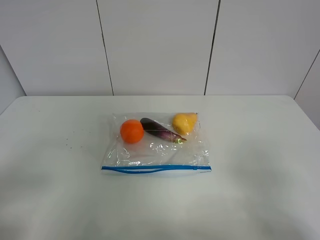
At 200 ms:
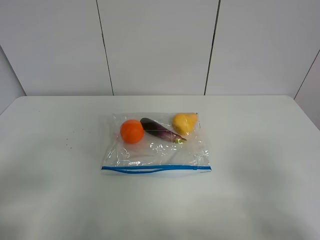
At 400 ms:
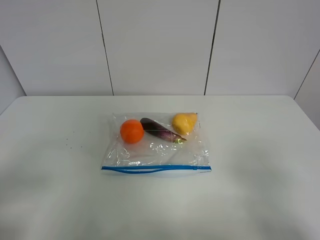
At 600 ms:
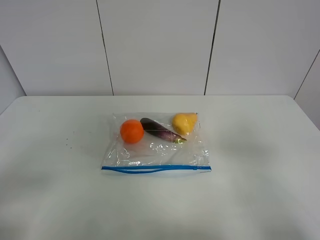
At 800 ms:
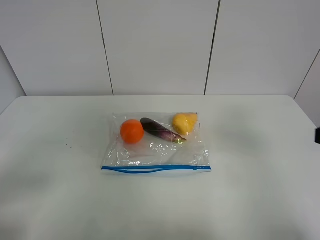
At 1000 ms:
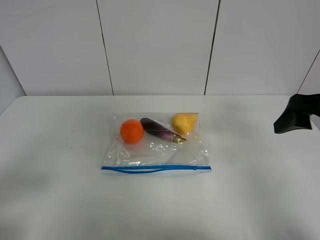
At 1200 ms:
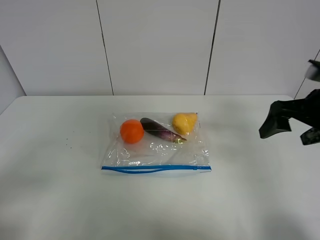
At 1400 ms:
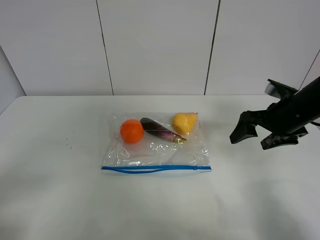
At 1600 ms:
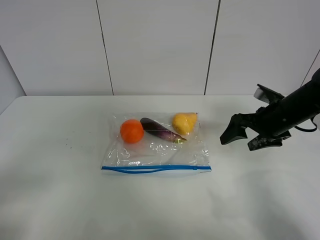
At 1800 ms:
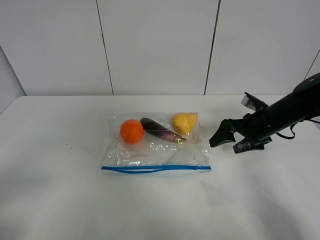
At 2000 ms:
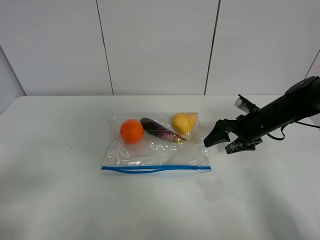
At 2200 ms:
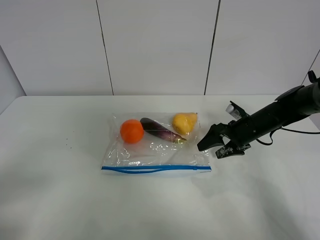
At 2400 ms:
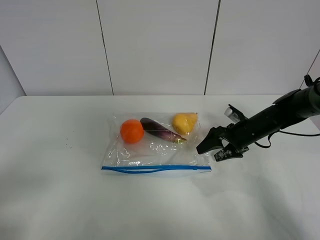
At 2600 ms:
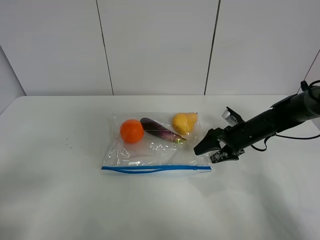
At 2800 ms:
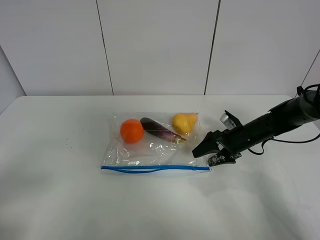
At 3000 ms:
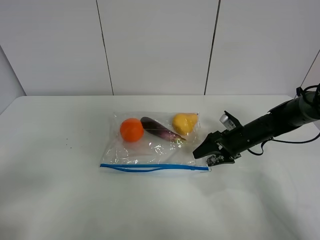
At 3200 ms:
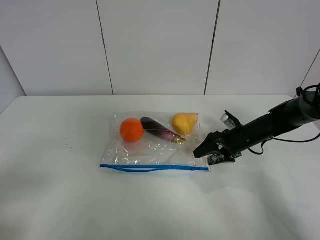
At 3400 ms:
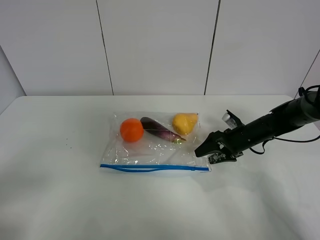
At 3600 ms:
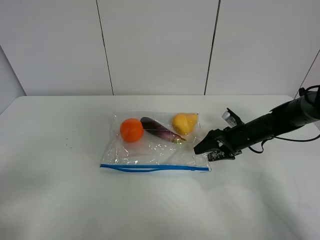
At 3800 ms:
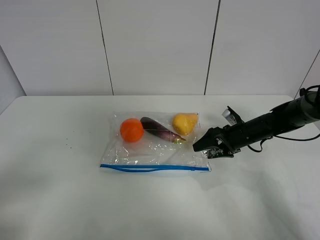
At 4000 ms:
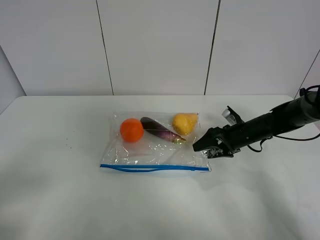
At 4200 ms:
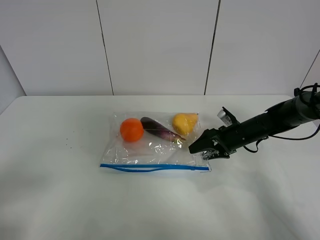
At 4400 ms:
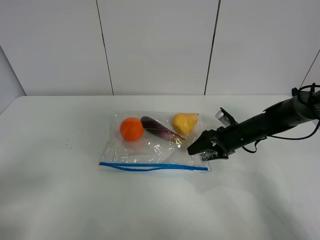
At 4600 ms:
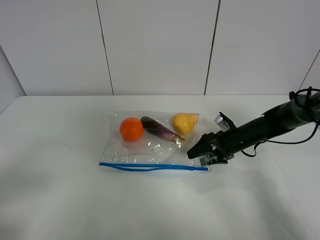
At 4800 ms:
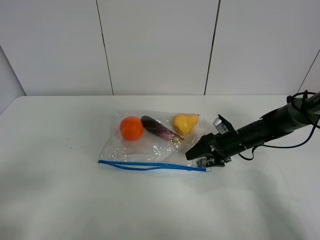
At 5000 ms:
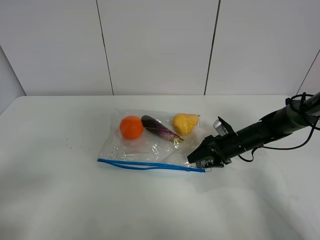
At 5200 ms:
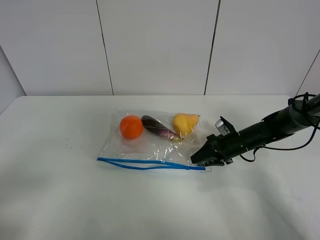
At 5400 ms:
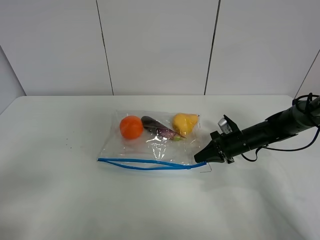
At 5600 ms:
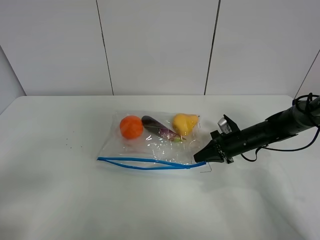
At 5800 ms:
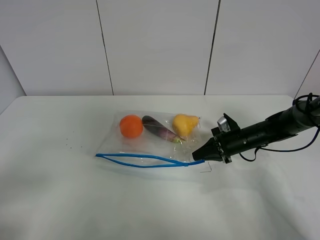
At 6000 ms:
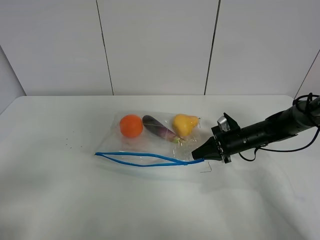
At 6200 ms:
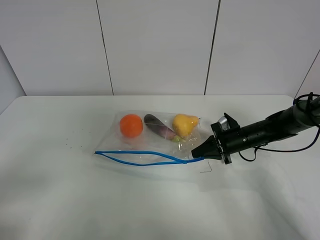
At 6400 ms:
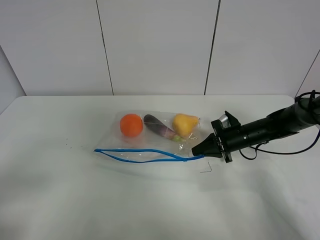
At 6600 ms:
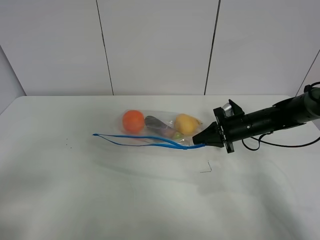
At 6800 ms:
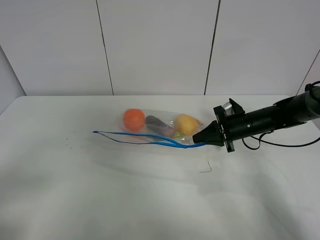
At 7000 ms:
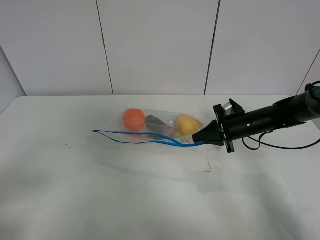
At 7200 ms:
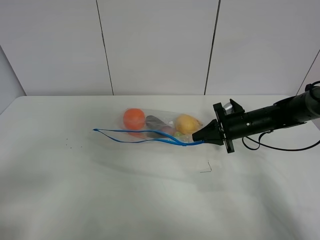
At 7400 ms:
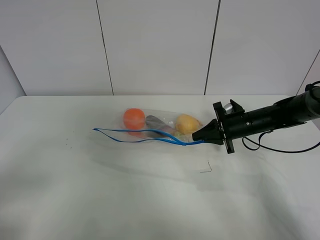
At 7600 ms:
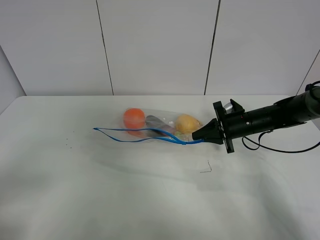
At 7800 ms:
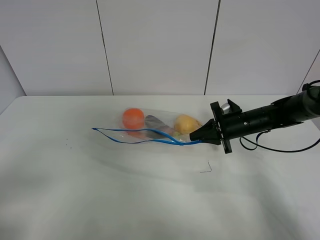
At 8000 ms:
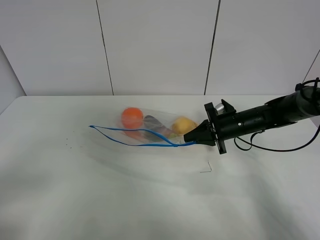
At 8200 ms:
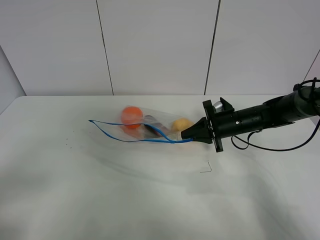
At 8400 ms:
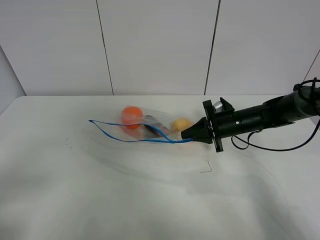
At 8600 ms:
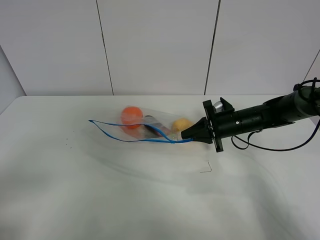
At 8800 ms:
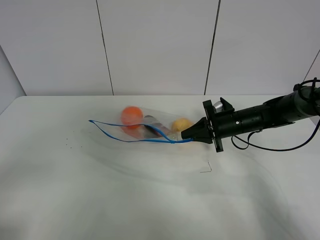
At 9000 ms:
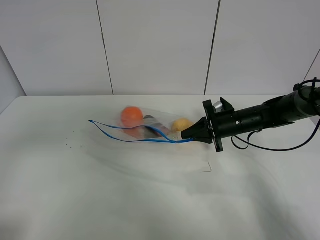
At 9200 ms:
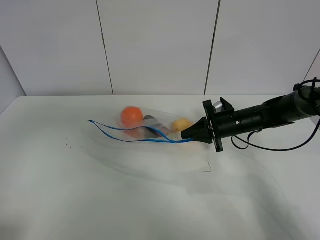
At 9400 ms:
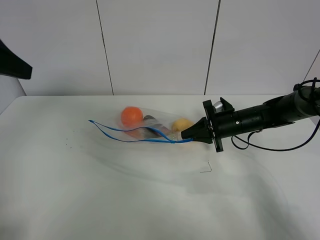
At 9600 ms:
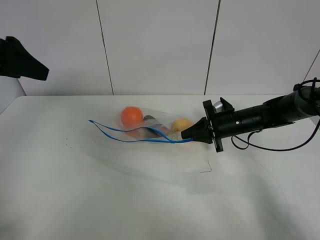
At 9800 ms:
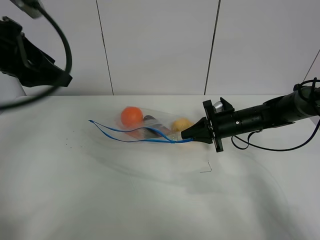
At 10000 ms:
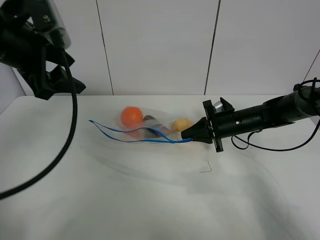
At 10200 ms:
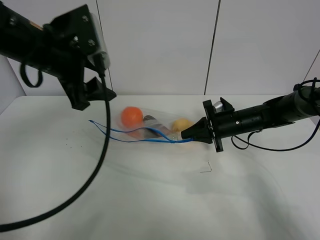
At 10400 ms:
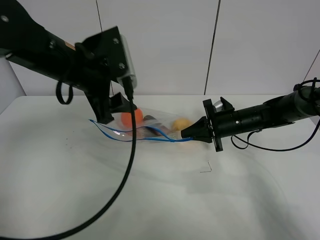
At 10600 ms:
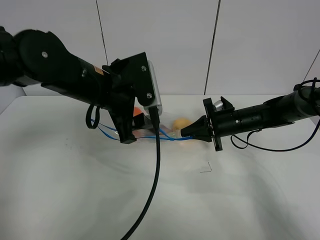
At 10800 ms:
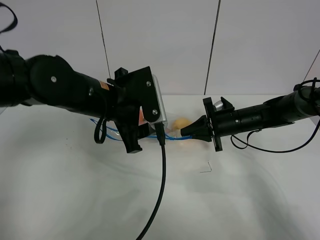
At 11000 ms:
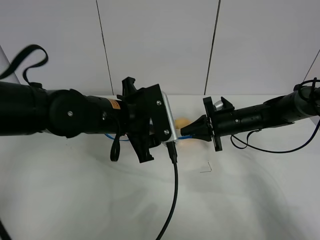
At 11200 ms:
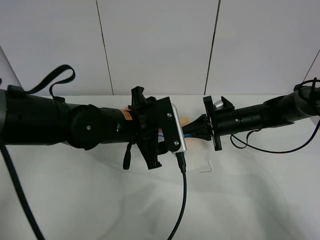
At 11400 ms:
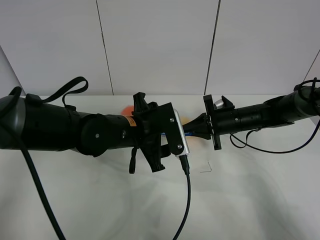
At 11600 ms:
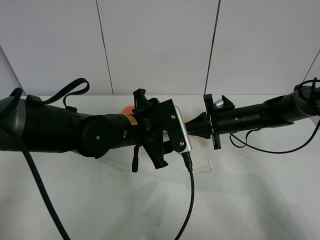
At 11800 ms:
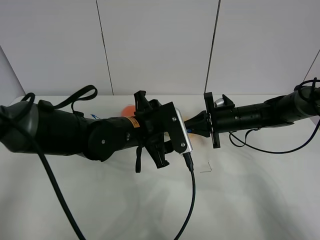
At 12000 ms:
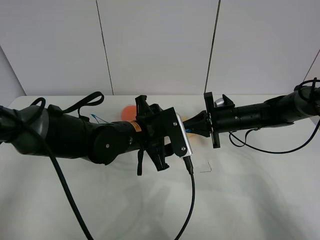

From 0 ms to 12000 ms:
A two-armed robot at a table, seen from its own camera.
Step, from 0 ms to 5200 ms: Grasp the fruit bag with right gripper.
Step, from 5400 ms to 7600 ms: Lift the fruit bag with your right gripper.
From 0 ms to 1600 ms: The right gripper moves forward, about 30 cm.
From 1600 ms to 3000 ms: The right gripper moves downward, some 10 cm.
From 3000 ms to 4400 ms: The grippers move only a little.
From 4400 ms to 6000 ms: The right gripper closes.
From 6000 ms to 7600 ms: There are only small adjustments of the grippers.
From 7600 ms to 9000 ms: The left gripper is displaced upward and forward by some 10 cm.
From 9000 ms to 10400 ms: The left gripper moves forward and to the right, some 25 cm.
From 10400 ms to 12000 ms: The left gripper is displaced downward and to the right by some 15 cm.

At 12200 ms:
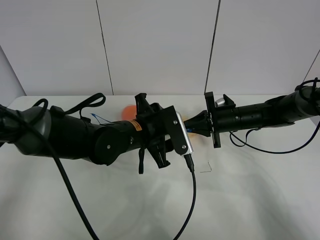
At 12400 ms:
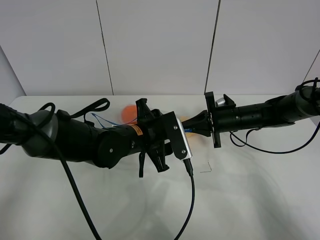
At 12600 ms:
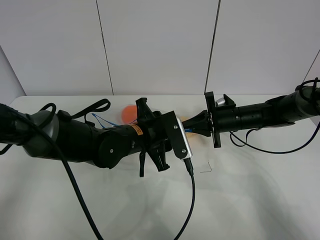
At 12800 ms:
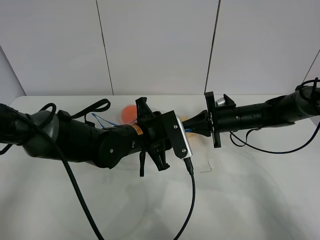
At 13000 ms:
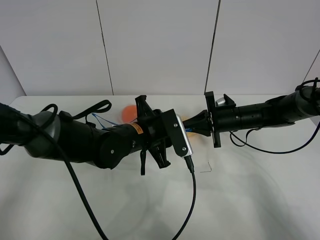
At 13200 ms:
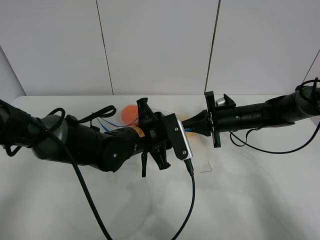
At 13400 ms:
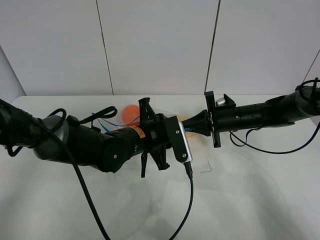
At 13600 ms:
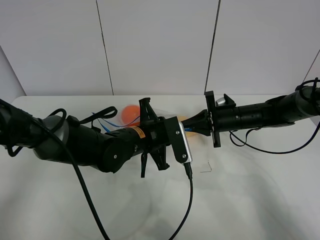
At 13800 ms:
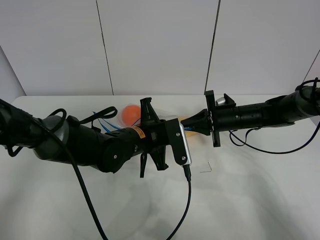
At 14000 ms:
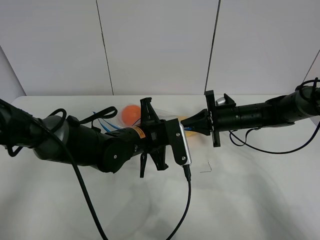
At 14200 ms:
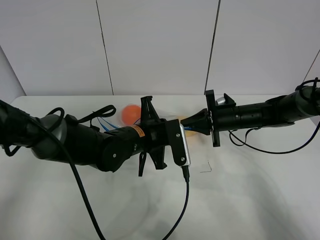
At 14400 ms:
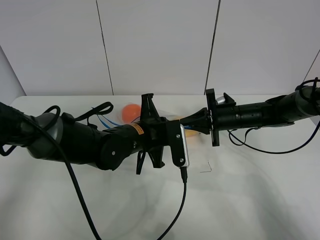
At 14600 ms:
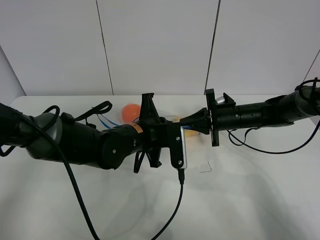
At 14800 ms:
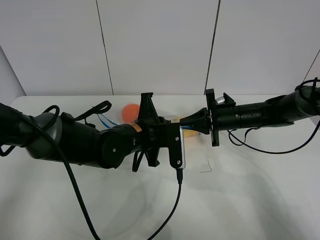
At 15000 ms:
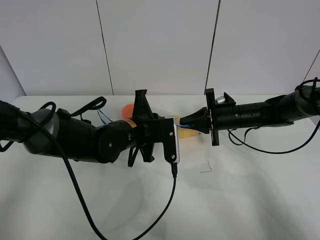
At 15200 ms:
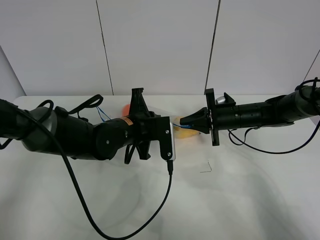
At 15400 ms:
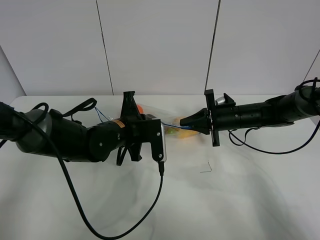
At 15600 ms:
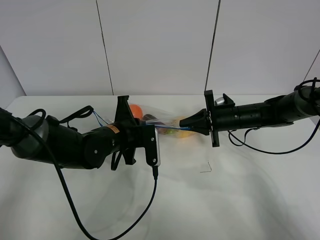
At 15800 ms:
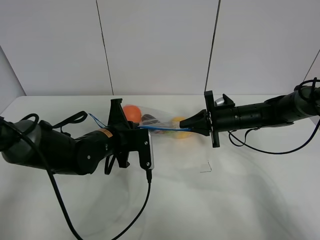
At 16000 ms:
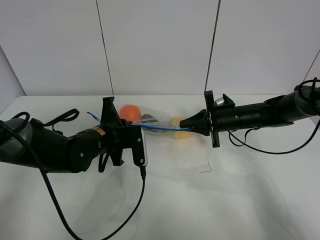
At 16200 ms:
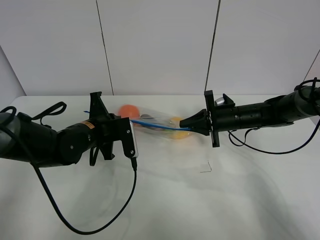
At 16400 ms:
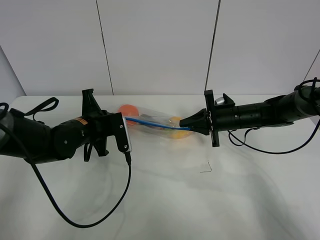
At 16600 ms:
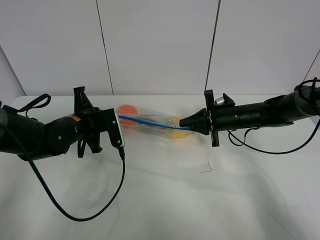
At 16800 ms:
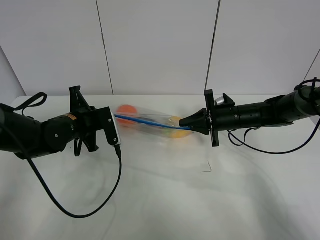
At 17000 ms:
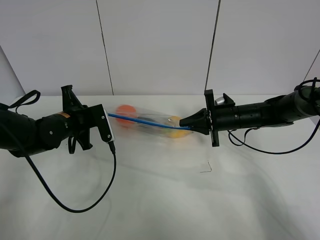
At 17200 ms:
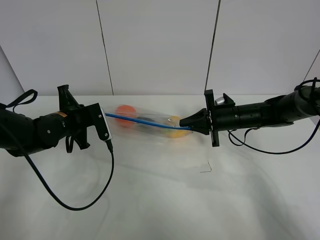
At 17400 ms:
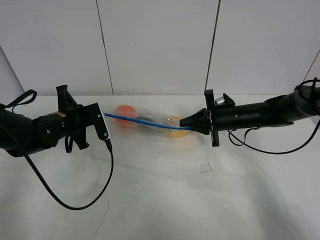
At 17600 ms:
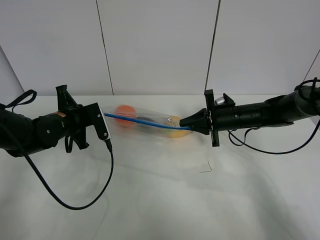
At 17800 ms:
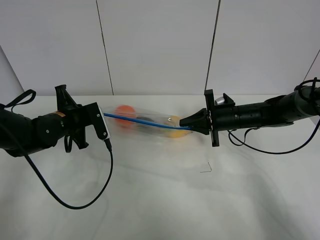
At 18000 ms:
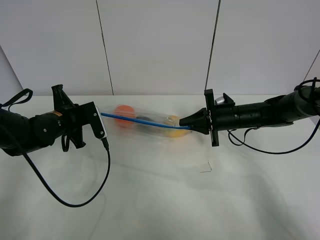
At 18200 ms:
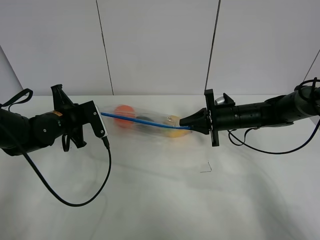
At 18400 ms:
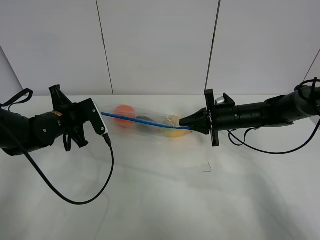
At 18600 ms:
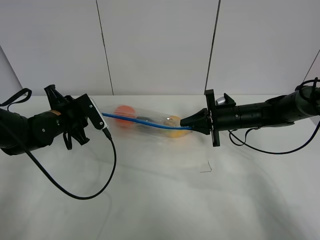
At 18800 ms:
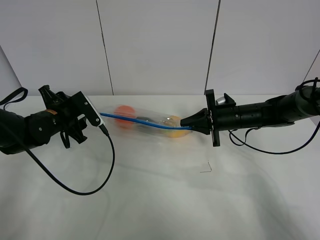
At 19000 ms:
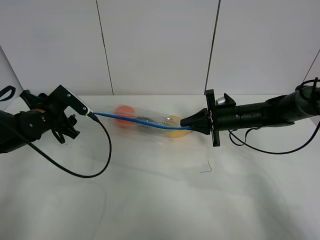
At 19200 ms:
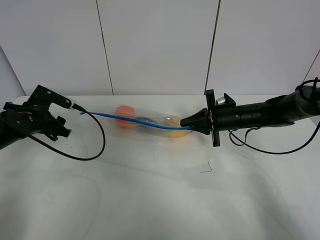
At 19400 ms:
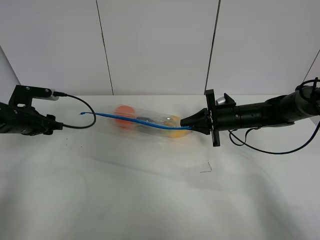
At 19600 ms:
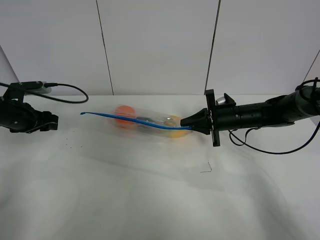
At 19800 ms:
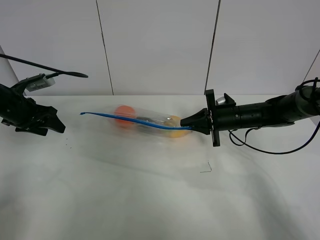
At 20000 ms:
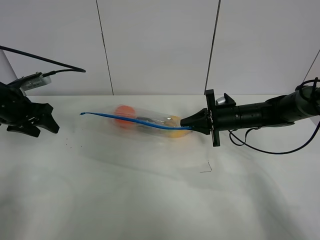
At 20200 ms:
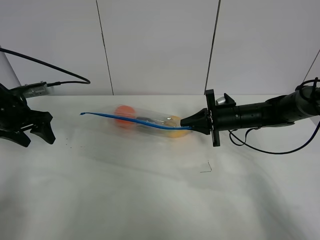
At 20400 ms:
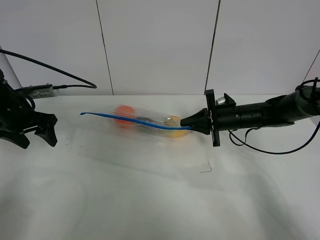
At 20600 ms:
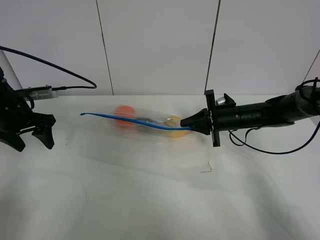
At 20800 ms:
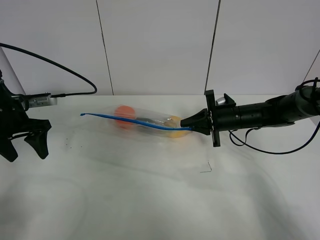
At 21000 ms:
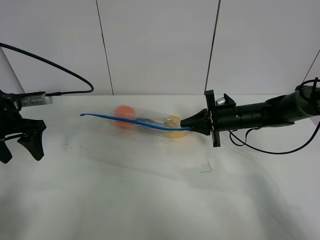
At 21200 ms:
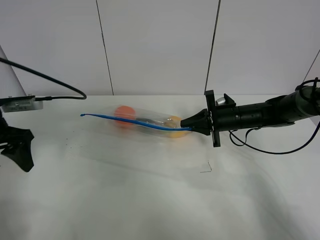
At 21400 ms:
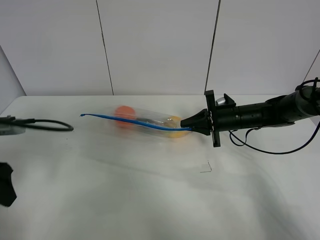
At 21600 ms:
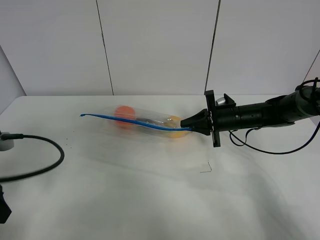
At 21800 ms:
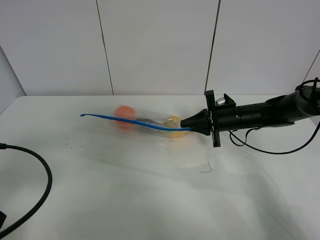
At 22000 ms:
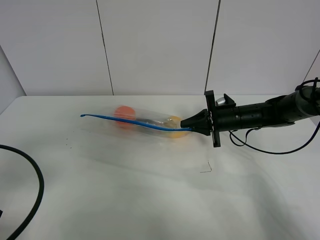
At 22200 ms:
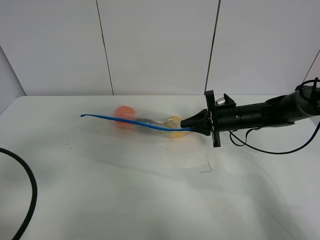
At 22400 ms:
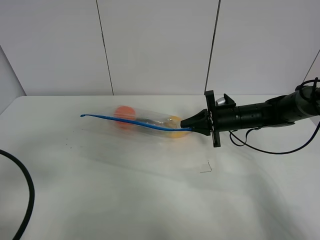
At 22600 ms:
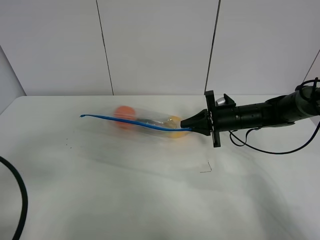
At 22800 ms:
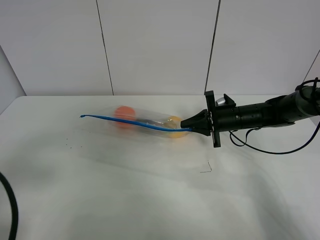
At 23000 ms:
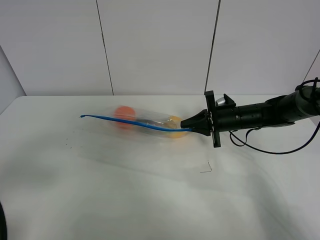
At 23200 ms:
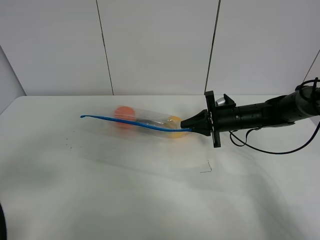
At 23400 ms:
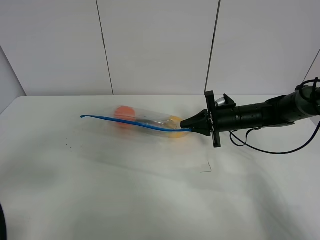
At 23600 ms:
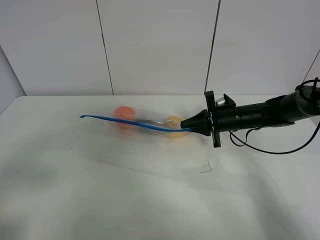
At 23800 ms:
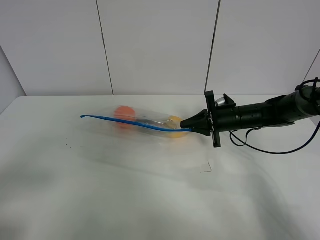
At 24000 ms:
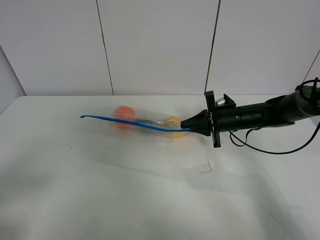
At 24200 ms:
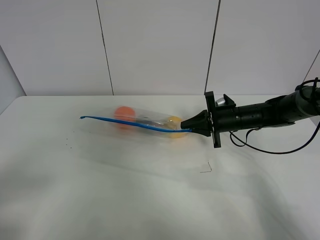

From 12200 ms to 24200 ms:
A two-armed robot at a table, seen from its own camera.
Step, from 12200 ms to 19000 ms: Pull the fruit bag with left gripper.
From 12200 ms to 13800 ms: The left gripper closes.
From 13800 ms to 15200 ms: The grippers stay close to where they were, moving slightly.
From 15200 ms to 16600 ms: The left gripper shifts approximately 10 cm to the left.
From 16600 ms to 18200 ms: There are only small adjustments of the grippers.
From 18200 ms to 19800 ms: The left gripper shifts some 10 cm to the left, and opens its fingers.
From 19800 ms to 21200 ms: The left gripper heads backward, covering about 10 cm.
From 21200 ms to 22600 ms: The left gripper heads backward, covering approximately 20 cm.
From 22600 ms to 24200 ms: The left gripper moves backward, some 5 cm.
